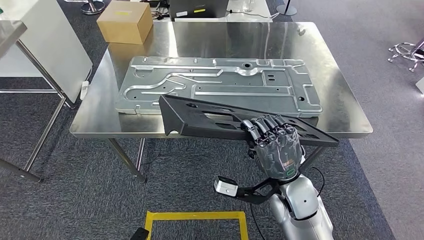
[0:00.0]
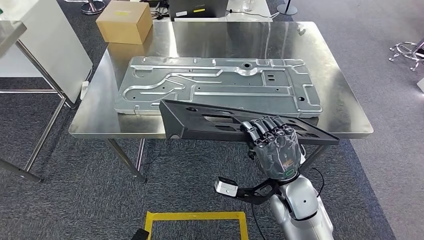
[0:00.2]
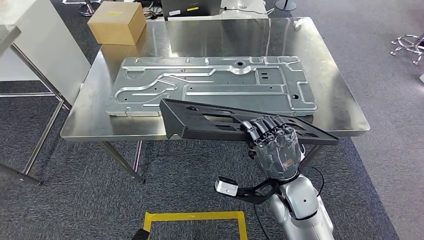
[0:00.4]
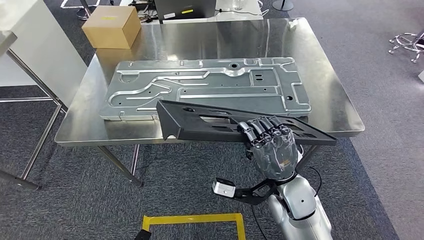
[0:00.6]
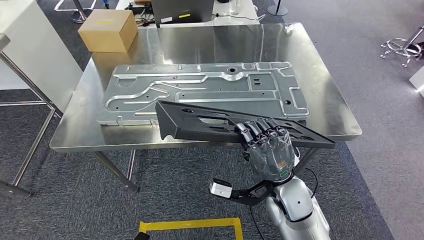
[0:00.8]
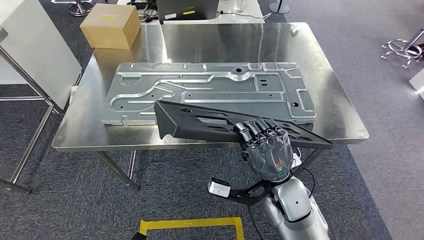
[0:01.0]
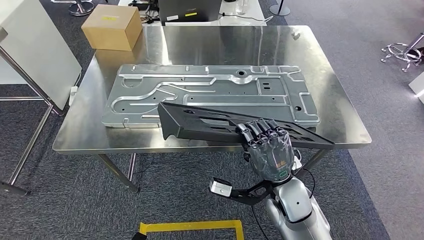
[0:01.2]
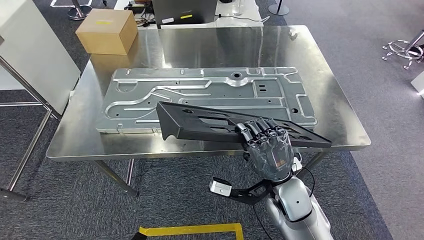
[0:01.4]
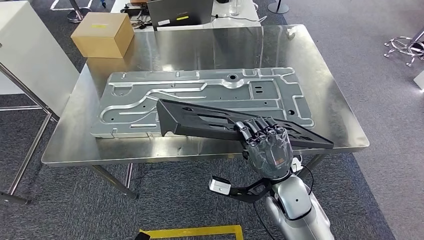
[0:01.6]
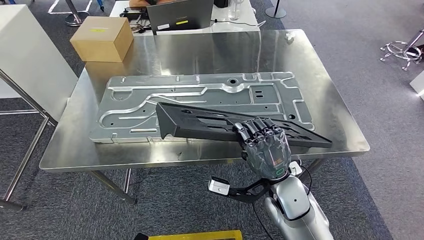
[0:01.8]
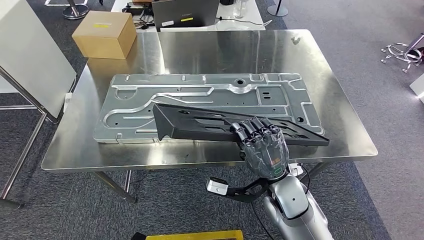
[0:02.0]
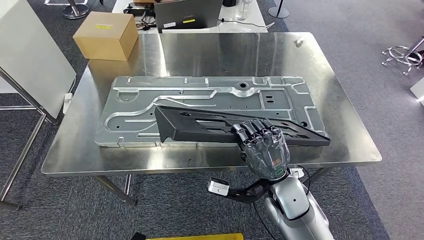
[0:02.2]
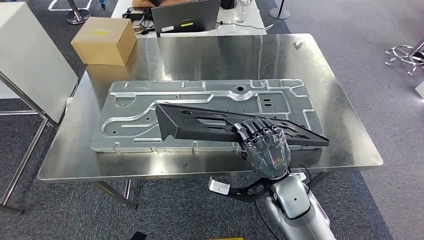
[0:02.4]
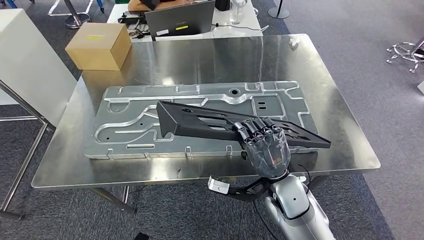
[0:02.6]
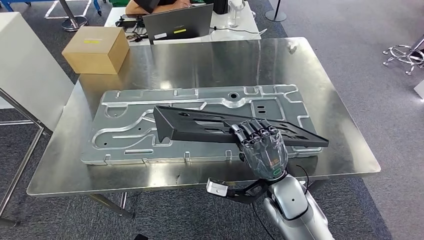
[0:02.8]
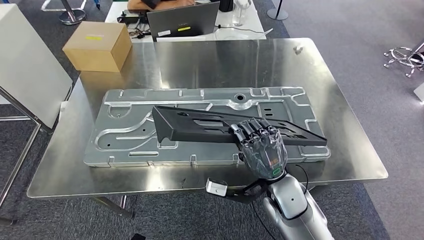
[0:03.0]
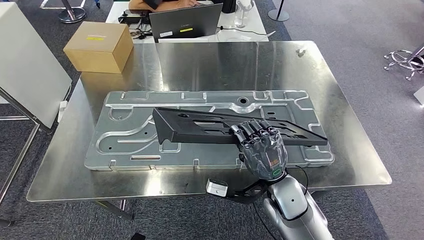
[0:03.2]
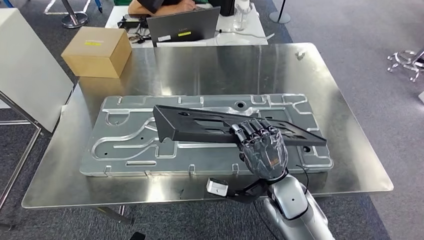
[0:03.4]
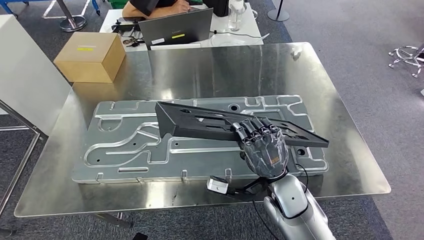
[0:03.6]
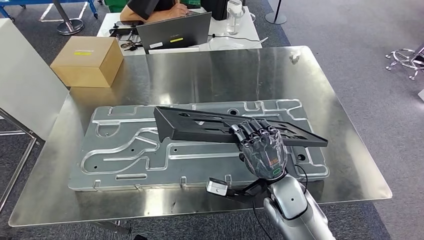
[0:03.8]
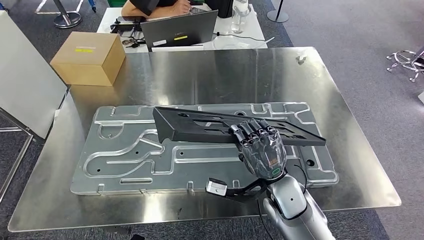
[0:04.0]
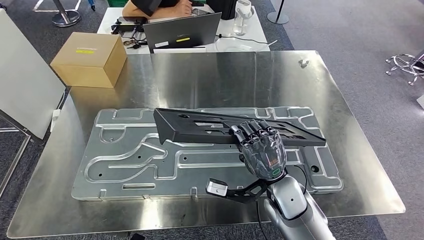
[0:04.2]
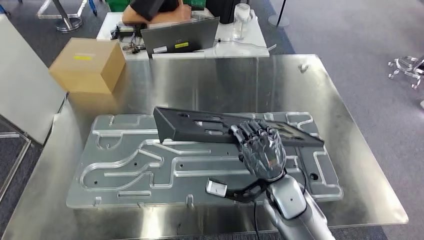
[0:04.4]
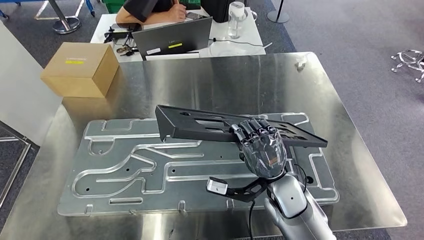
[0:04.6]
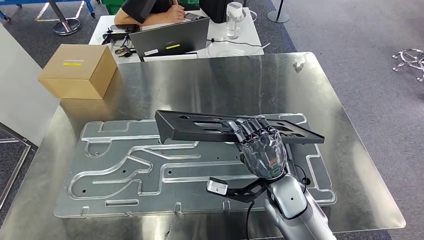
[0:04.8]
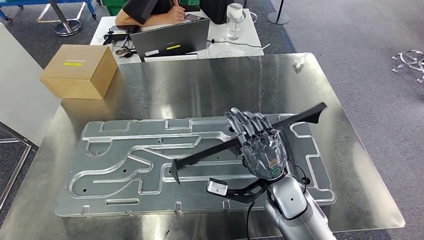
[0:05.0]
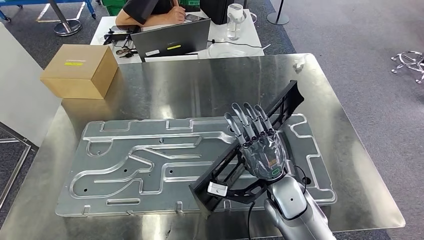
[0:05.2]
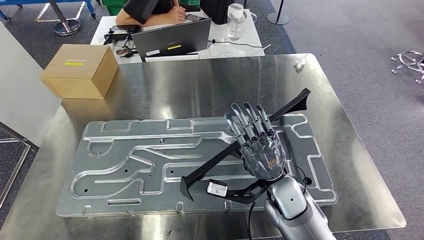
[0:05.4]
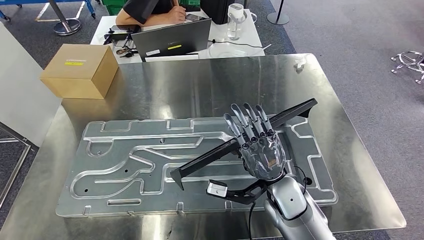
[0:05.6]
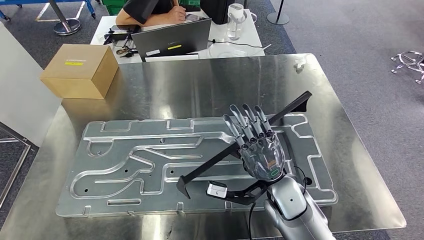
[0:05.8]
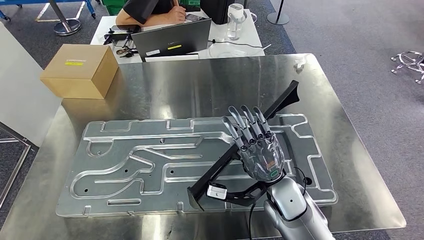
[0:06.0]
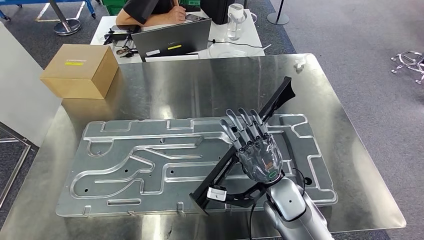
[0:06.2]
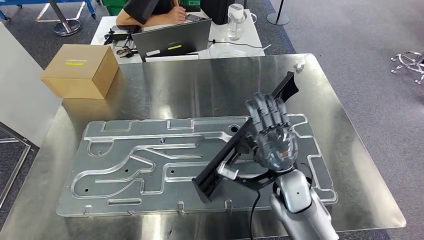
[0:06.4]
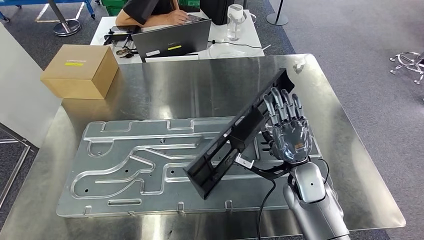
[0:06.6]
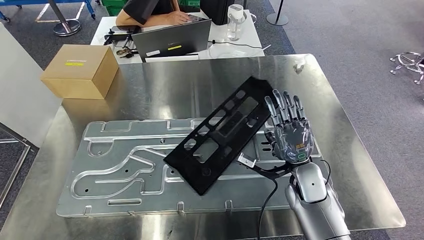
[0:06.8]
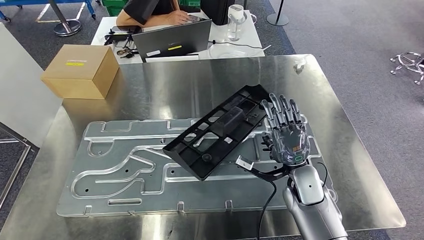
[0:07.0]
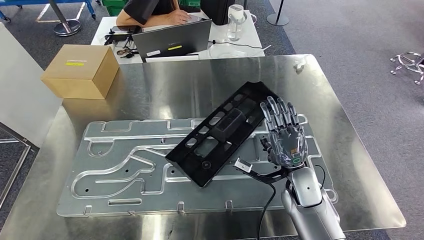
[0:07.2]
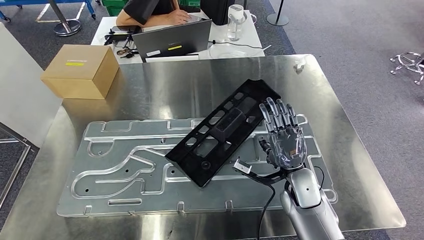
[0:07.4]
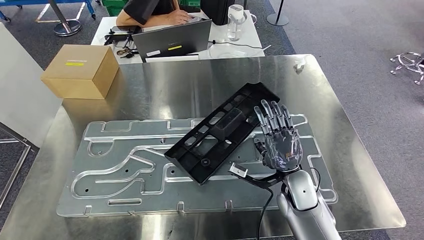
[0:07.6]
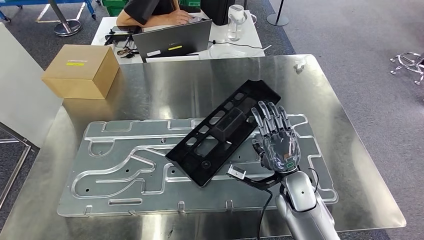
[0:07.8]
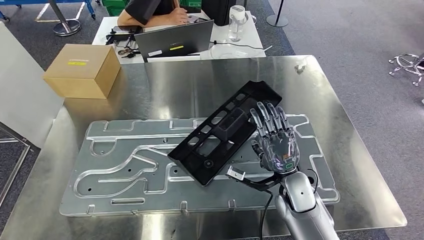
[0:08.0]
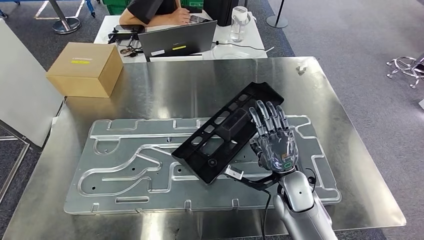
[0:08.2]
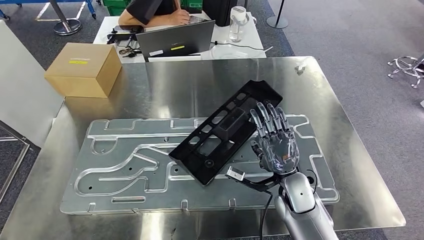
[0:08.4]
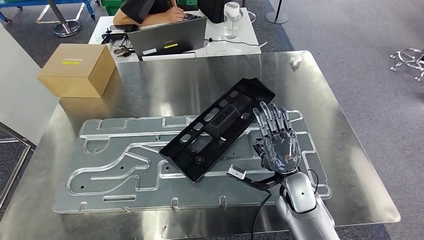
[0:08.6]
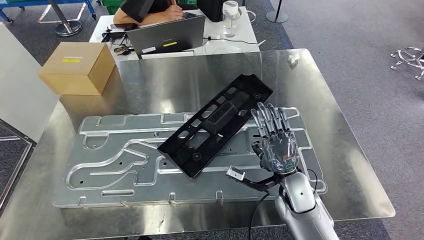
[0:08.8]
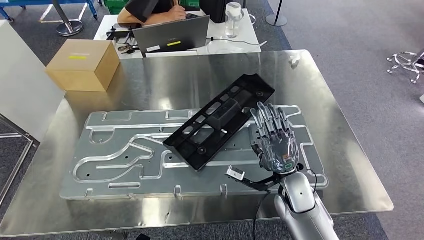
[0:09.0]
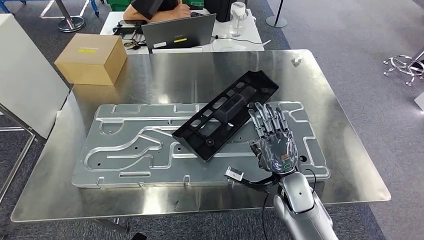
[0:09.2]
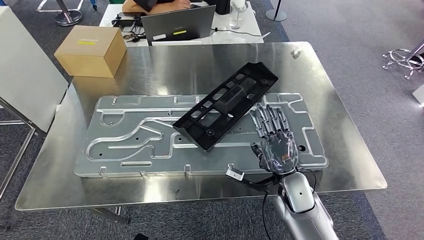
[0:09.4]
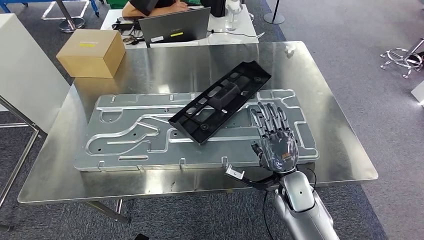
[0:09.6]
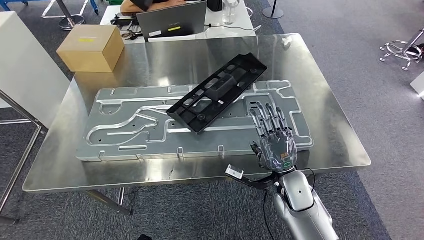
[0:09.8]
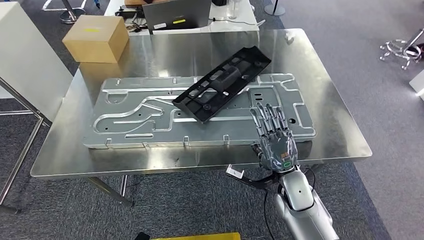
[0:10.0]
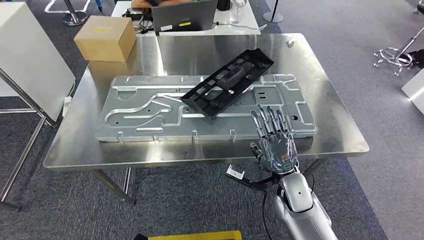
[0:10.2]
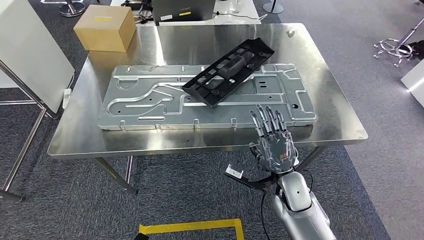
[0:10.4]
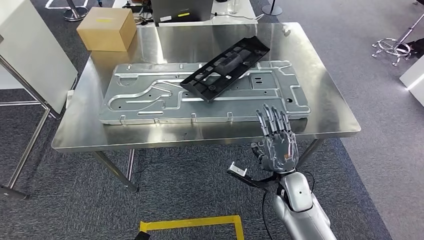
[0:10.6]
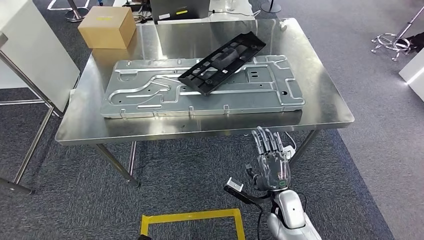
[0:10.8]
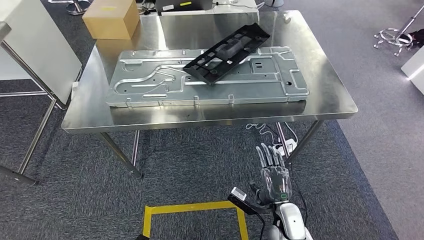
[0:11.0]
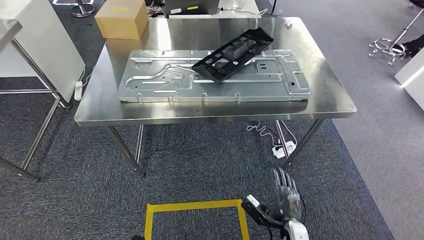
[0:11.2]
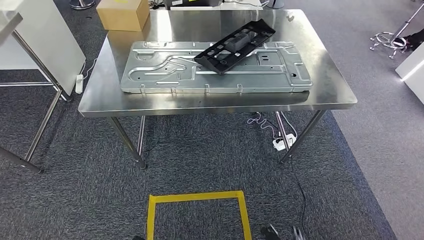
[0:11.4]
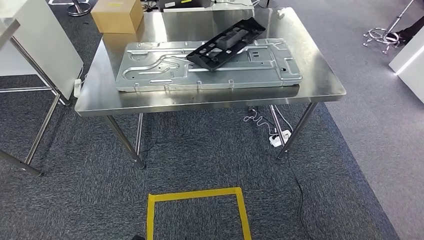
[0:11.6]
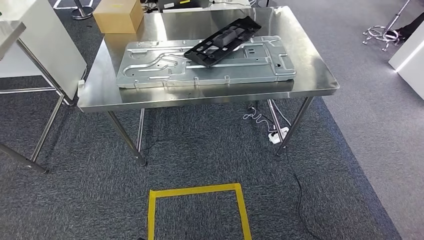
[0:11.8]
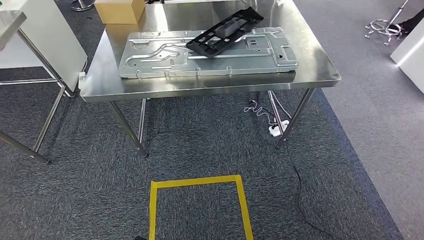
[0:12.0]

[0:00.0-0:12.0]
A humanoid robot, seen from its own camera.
Step, 0:00.0 to 0:08.8: Insert the large material into the corresponding slot on the workbench.
0:06.0 to 0:07.6: The right hand moves about 5 cm.

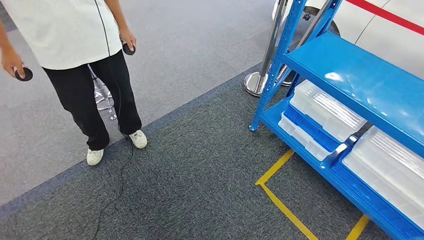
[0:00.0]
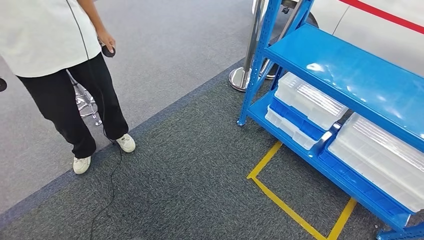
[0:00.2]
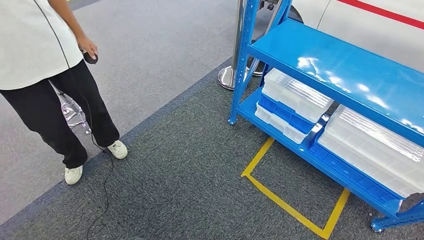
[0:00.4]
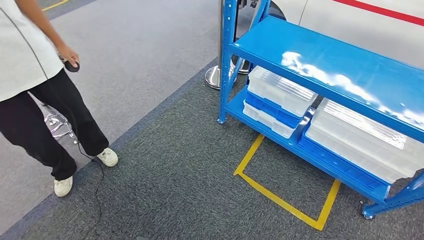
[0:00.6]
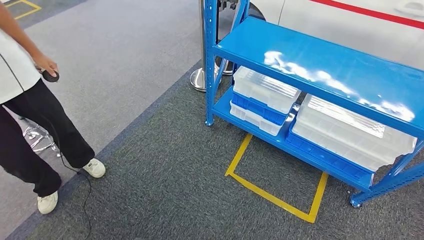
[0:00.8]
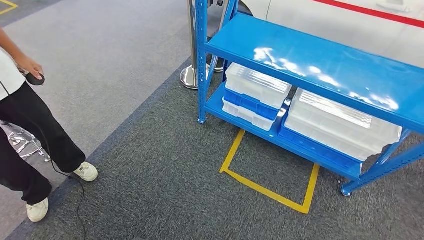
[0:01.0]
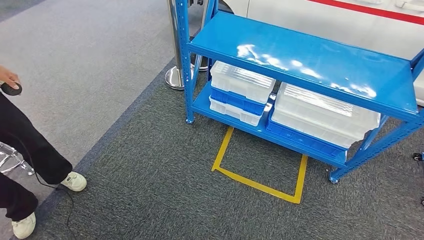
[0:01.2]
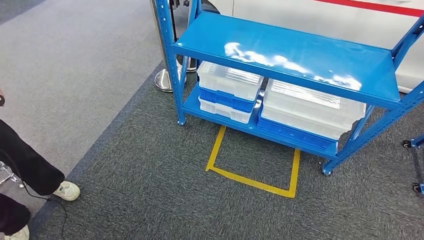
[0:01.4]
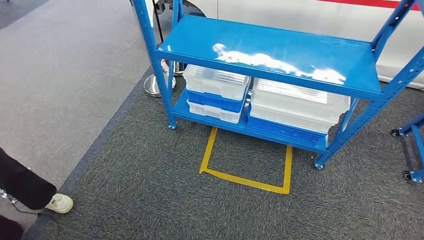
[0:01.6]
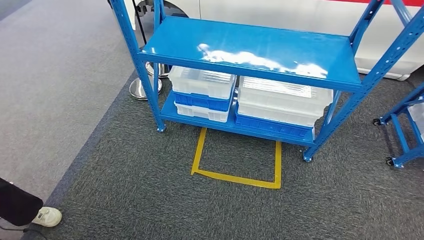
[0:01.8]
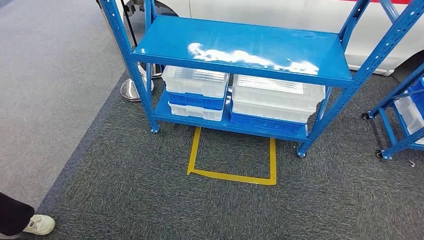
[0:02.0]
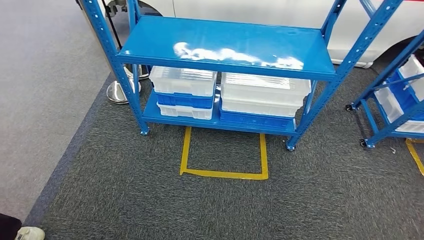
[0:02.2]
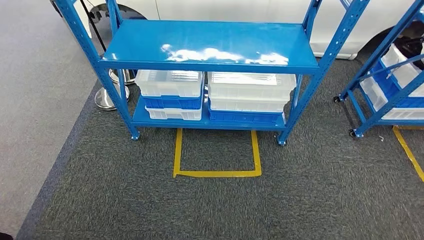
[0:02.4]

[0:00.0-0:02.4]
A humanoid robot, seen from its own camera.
Step, 0:00.0 to 0:02.4: Move to the initial position of the shelf.

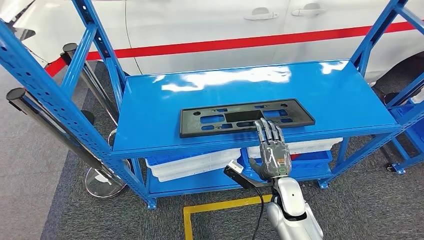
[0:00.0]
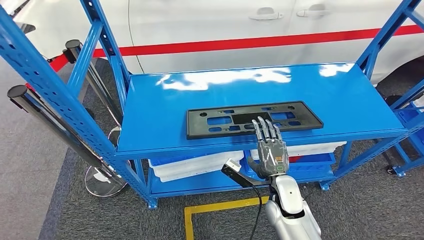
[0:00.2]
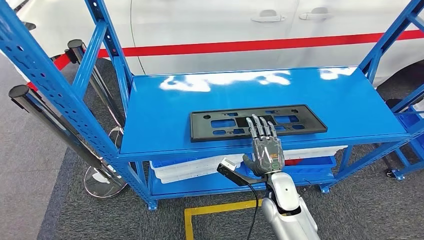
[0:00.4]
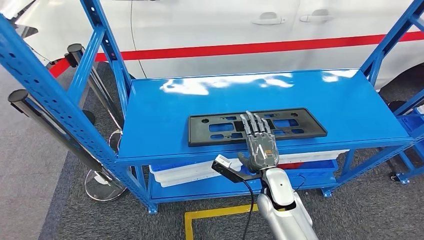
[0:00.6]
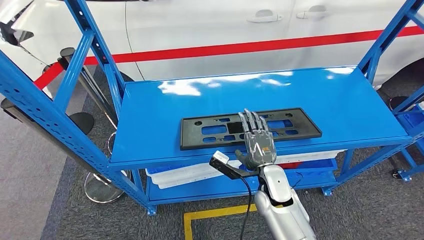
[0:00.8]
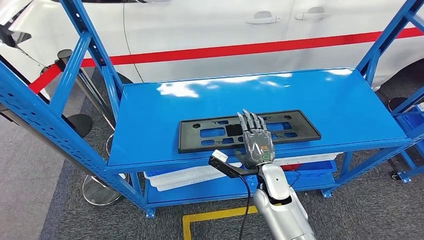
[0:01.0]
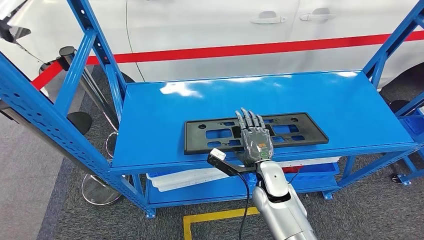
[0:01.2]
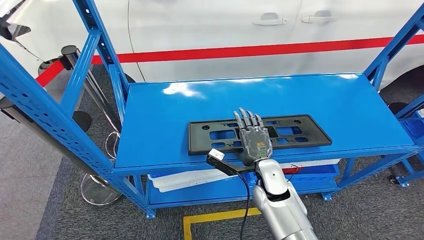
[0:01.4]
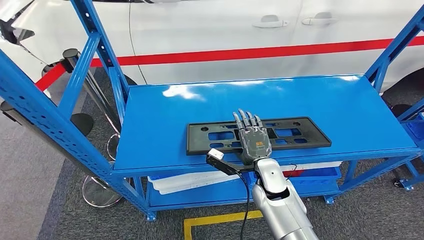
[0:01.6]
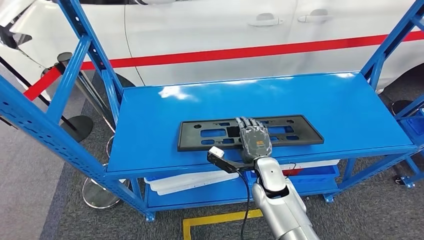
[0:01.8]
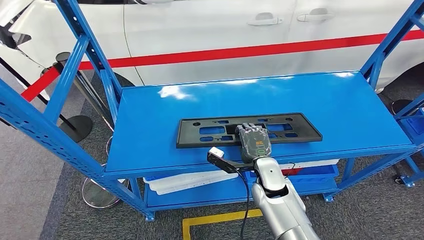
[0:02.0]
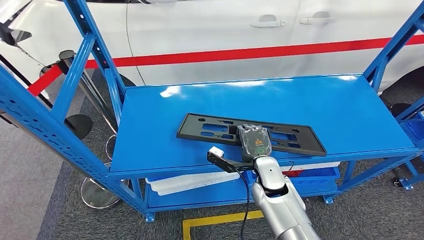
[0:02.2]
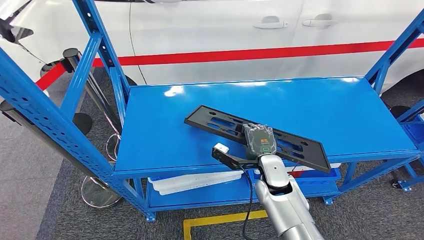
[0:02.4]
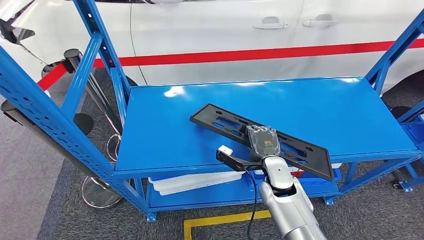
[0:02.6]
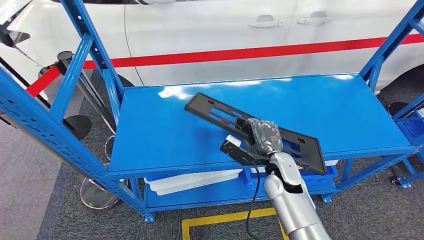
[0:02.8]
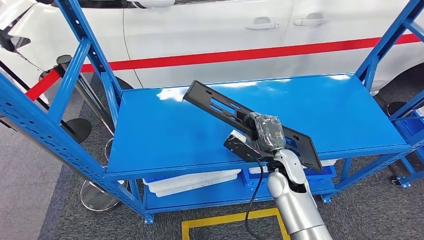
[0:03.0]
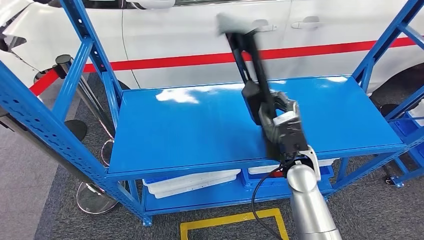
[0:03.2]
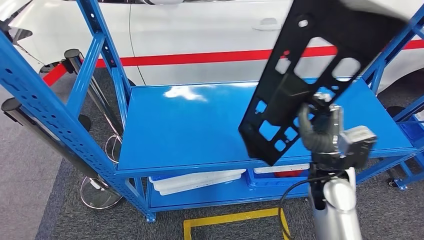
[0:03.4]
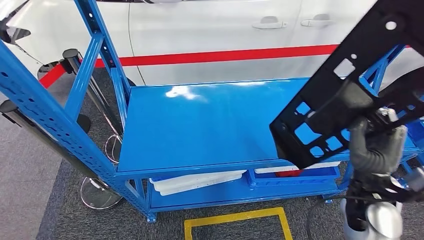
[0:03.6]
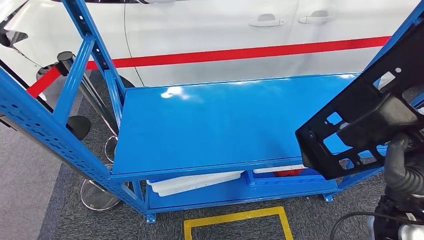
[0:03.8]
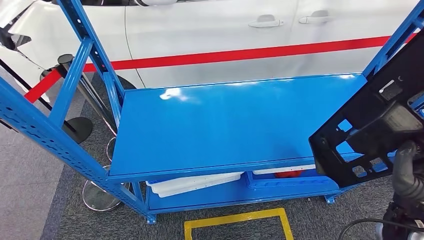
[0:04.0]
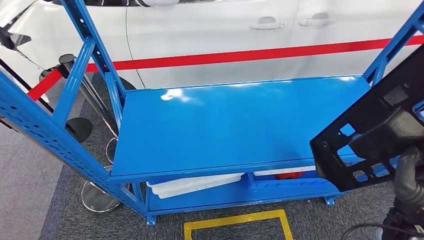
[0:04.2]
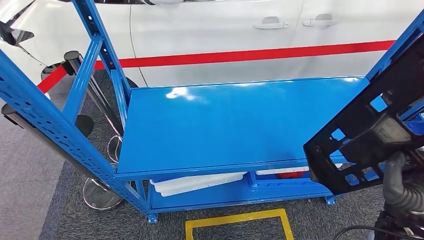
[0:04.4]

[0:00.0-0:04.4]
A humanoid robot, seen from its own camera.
Step, 0:00.0 to 0:03.6: Pick up the large material from the shelf.
